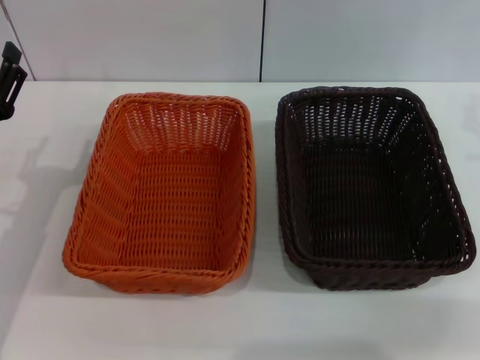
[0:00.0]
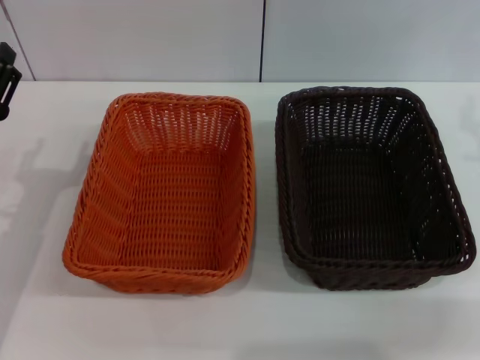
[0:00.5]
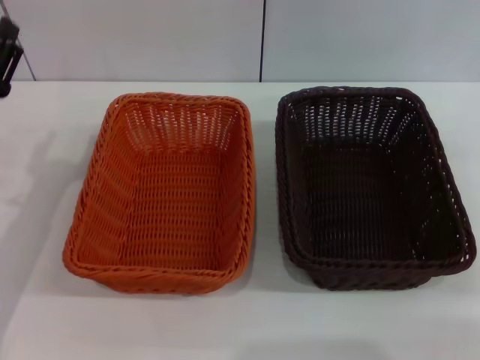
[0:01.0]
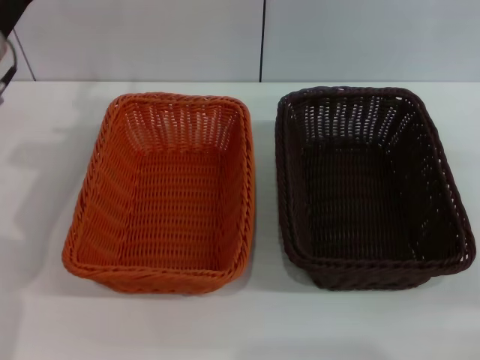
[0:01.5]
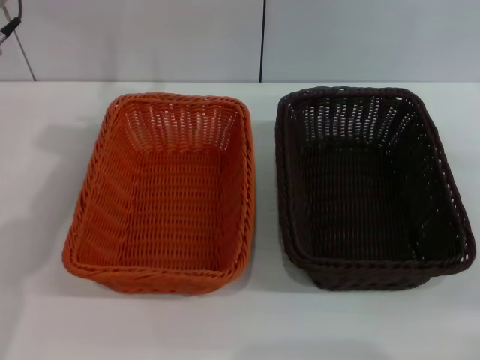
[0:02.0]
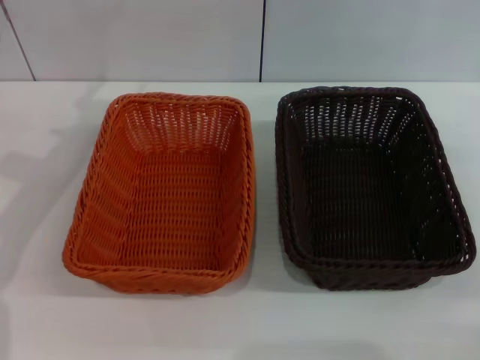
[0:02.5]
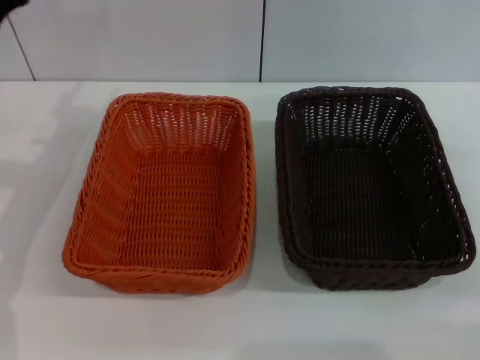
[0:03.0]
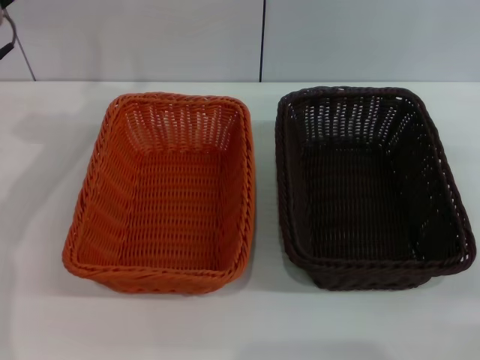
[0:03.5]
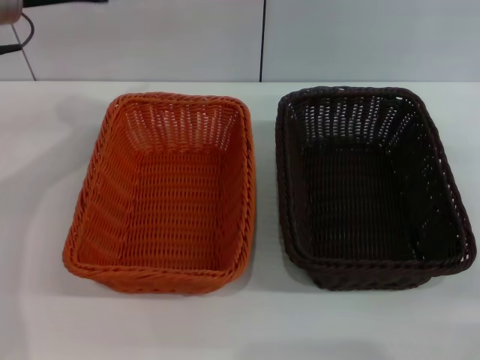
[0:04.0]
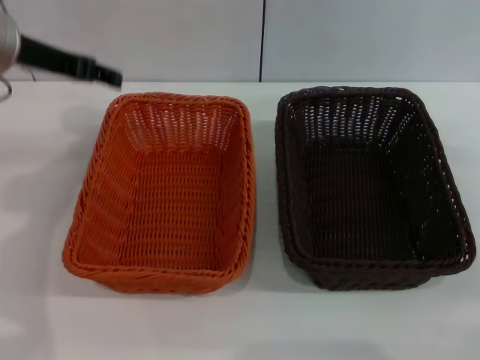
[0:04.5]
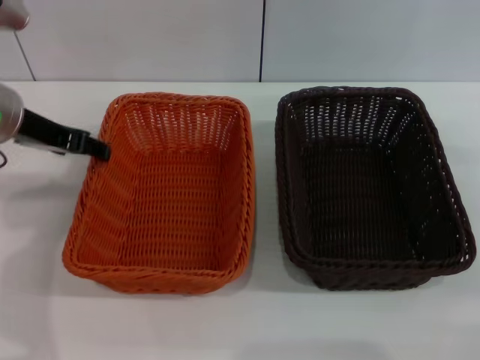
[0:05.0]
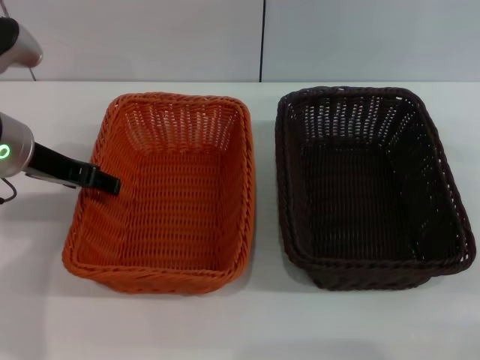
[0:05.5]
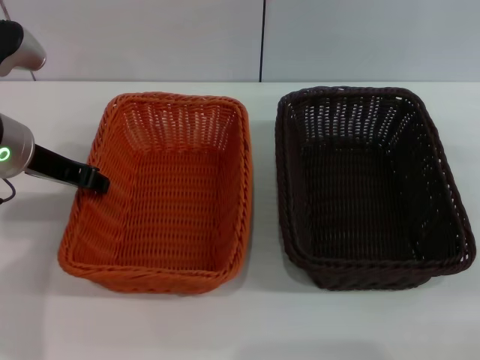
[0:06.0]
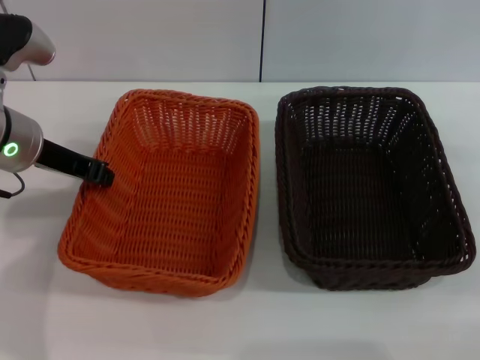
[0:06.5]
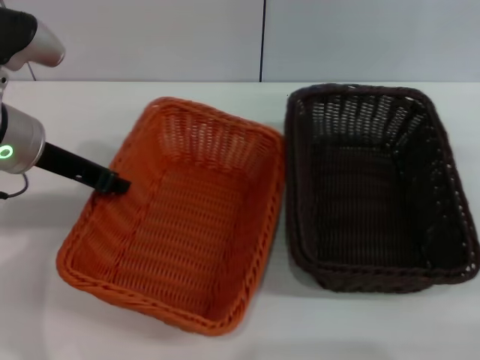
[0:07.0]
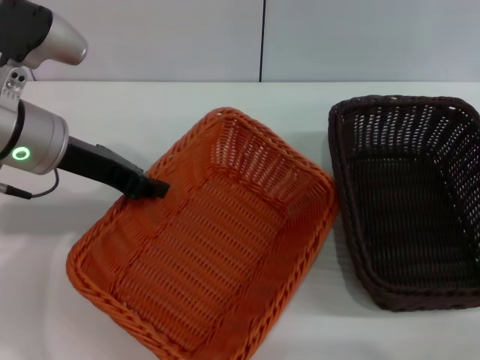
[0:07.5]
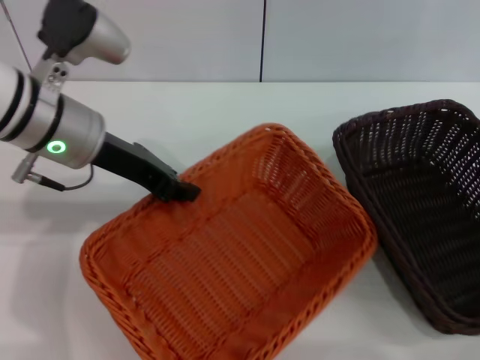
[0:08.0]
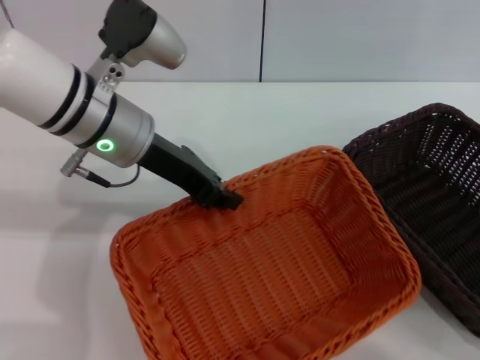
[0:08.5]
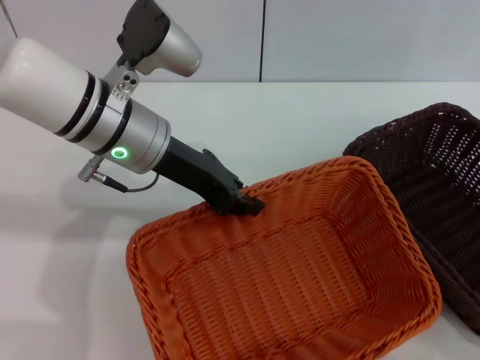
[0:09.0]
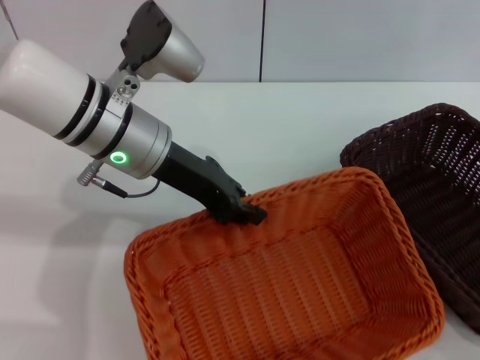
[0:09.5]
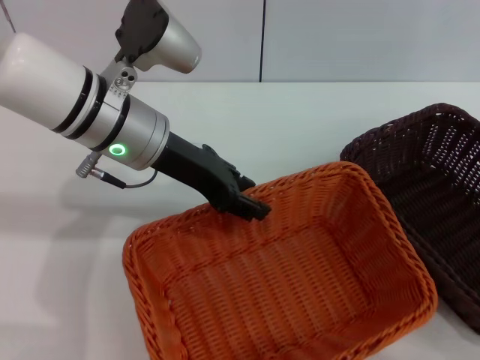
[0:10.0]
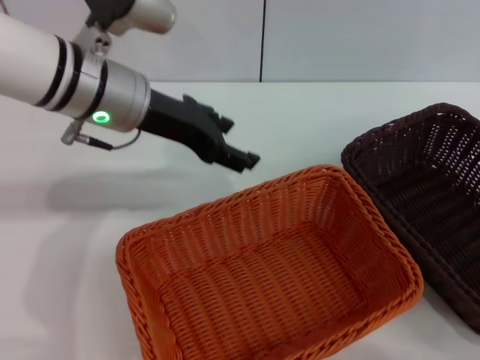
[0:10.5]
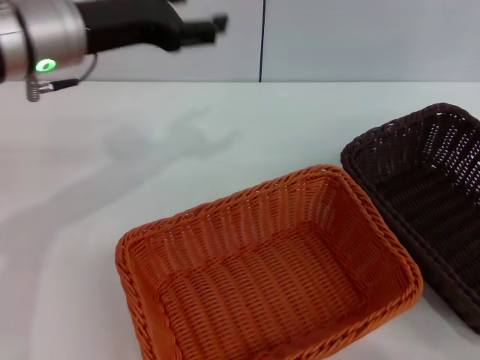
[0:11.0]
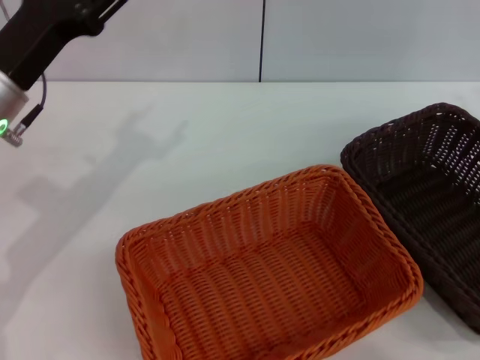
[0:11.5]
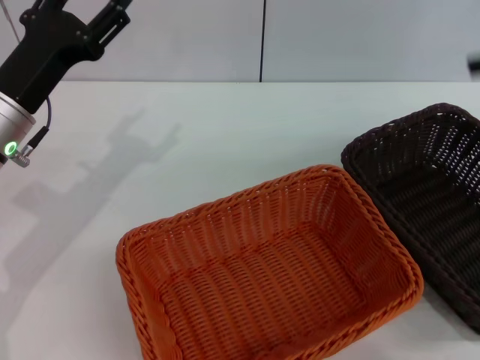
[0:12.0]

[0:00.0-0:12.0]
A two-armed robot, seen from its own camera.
Step, 0:00.0 to 0:08.5: Pick up the light basket with the left gripper.
Step, 0:09.0 to 0:10.0: Place the light basket in the center of view with the left gripper.
0:00.0 to 0:02.0: The right gripper moves some 5 cm, while the left gripper goes approximately 20 cm upward and forward.
0:02.0 to 0:04.0: The left gripper moves some 10 cm downward and comes back.
0:04.0 to 0:06.0: The left gripper heads downward and backward, covering approximately 10 cm, and closes.
0:06.0 to 0:08.0: The left gripper shifts some 5 cm to the right, and closes.
0:10.0 to 0:12.0: The right gripper moves upward, some 15 cm. The left gripper is displaced to the left by approximately 10 cm, and opens up.

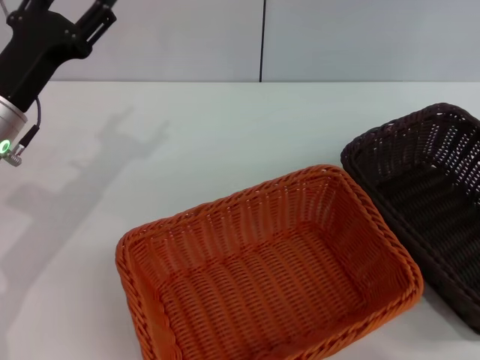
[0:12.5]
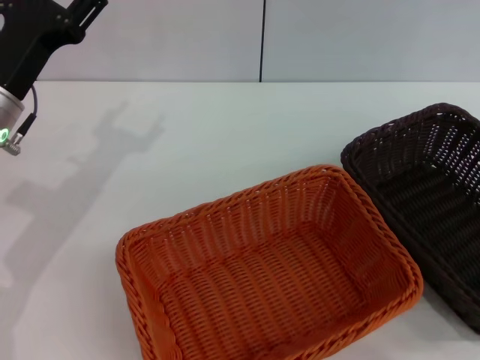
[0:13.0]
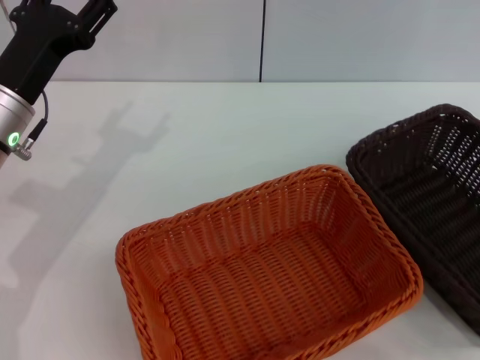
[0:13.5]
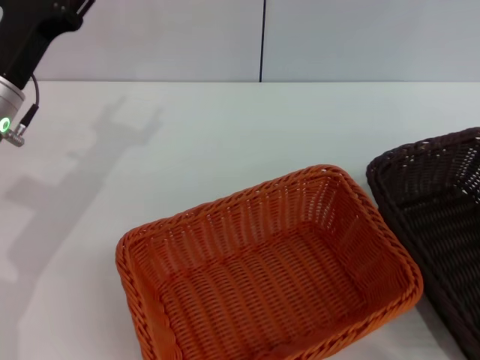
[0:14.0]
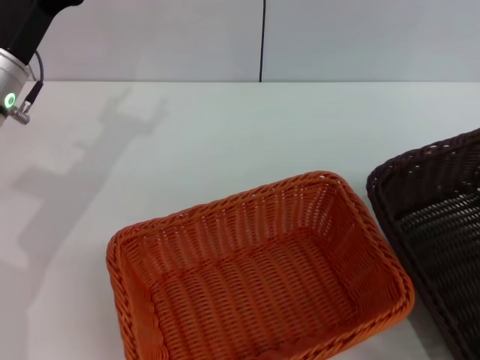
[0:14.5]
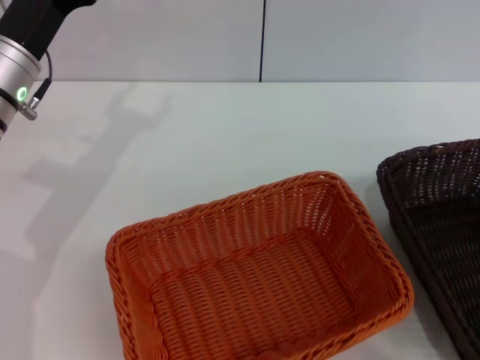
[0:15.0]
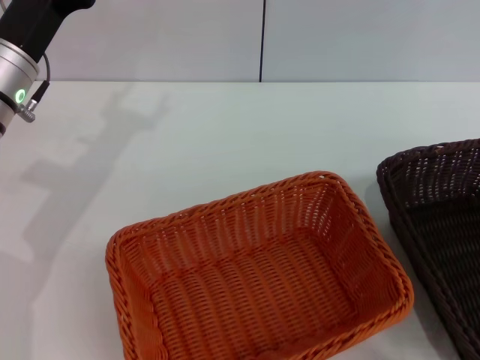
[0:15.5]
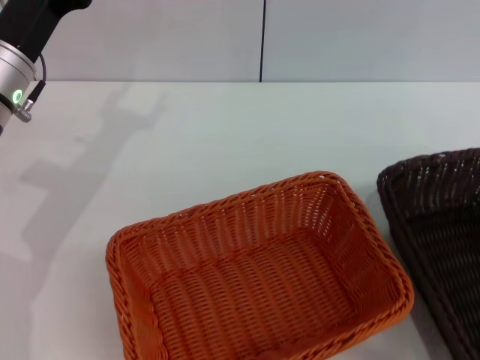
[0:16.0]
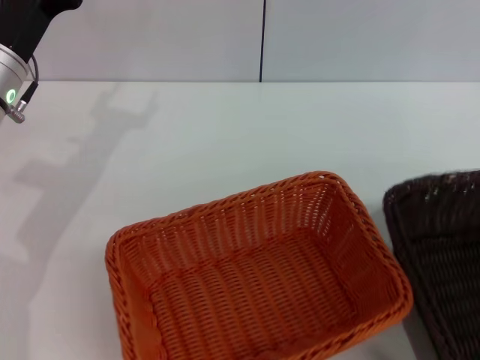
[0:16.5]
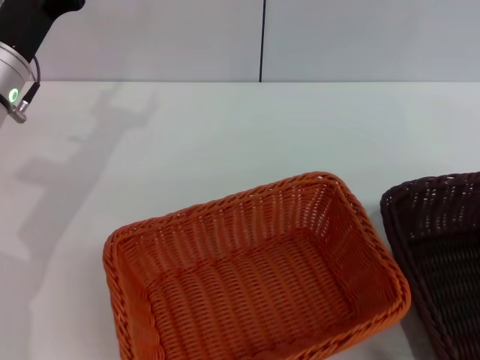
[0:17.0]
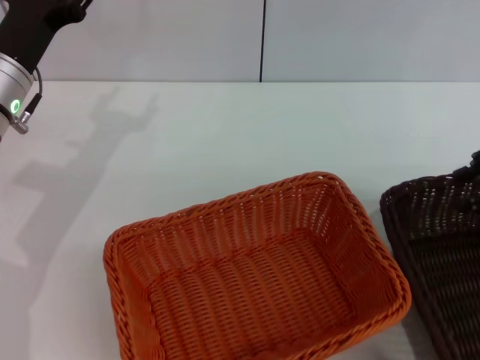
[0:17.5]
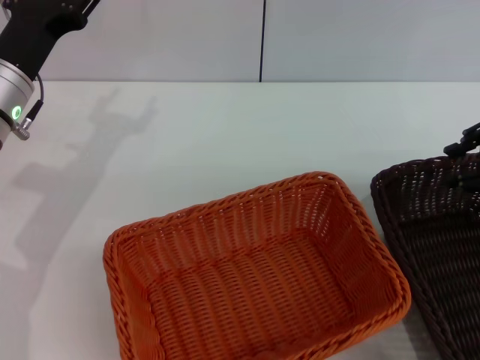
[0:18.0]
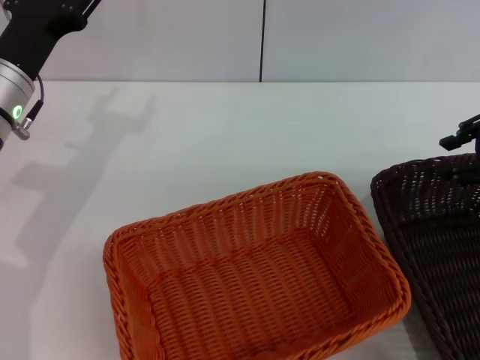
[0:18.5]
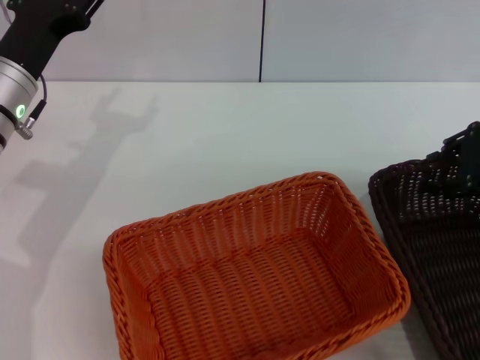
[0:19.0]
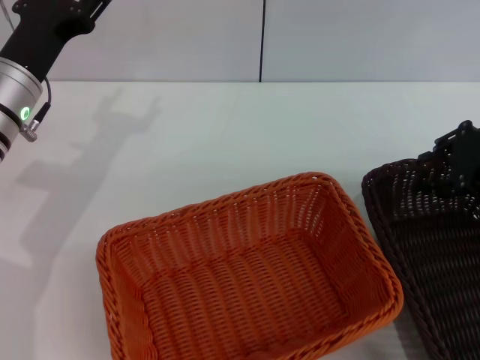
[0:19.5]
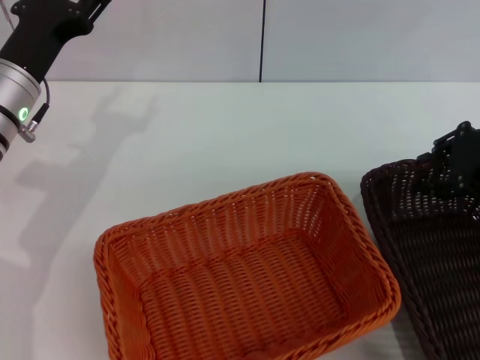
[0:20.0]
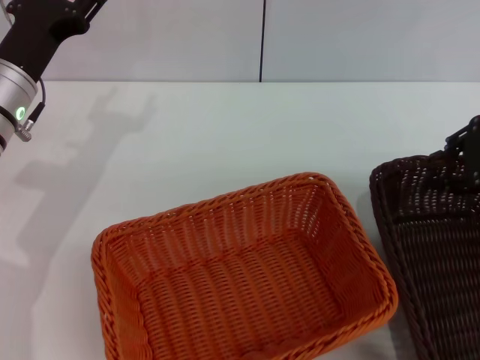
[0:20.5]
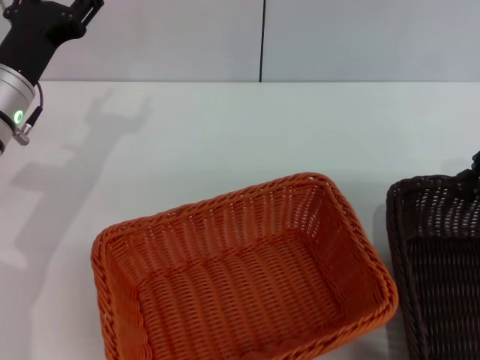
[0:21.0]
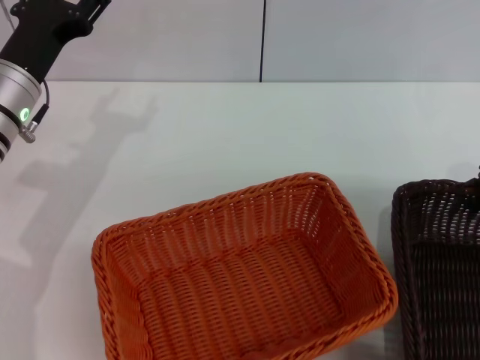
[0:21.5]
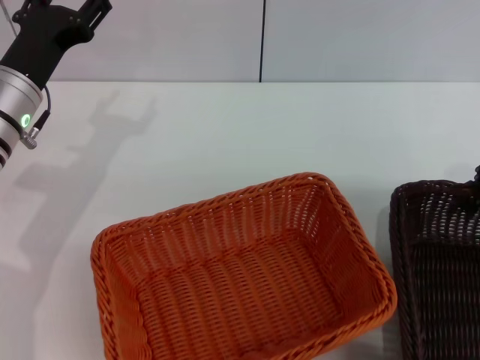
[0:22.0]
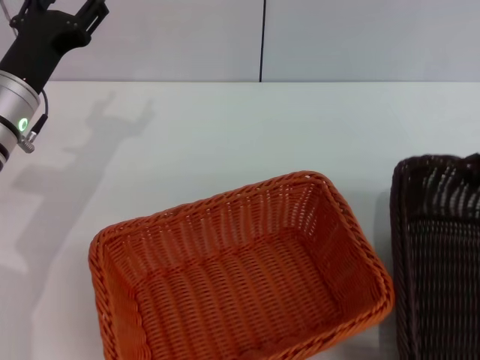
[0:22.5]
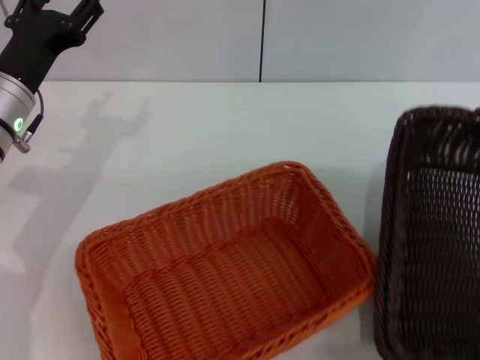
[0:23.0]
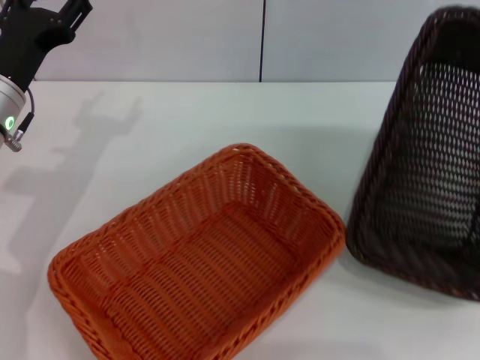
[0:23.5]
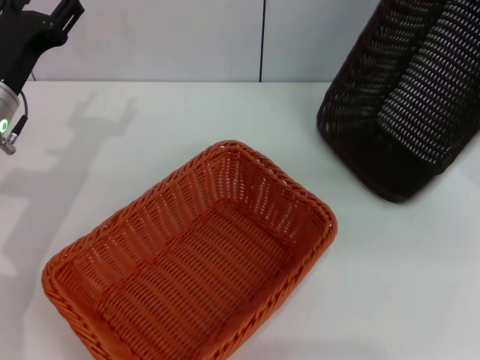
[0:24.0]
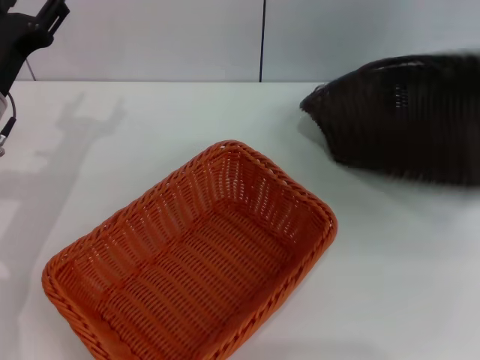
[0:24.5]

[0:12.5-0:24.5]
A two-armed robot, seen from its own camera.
0:12.5 to 0:14.5: The right gripper shifts about 10 cm downward, to the left and backward.
0:14.5 to 0:16.5: The grippers make only small movements.
0:16.5 to 0:18.5: The right gripper goes approximately 10 cm forward.
0:18.5 to 0:22.5: There are only small adjustments of the grippers.
0:22.5 to 0:24.5: The right gripper travels upward by roughly 10 cm.

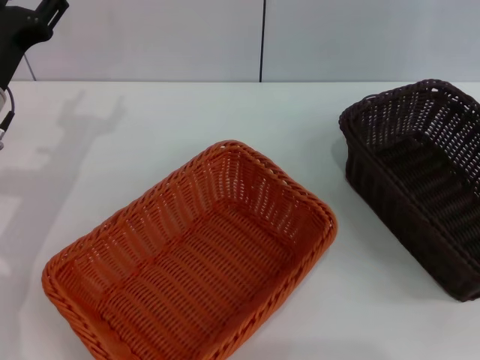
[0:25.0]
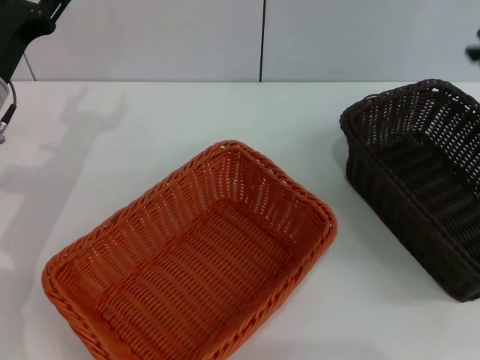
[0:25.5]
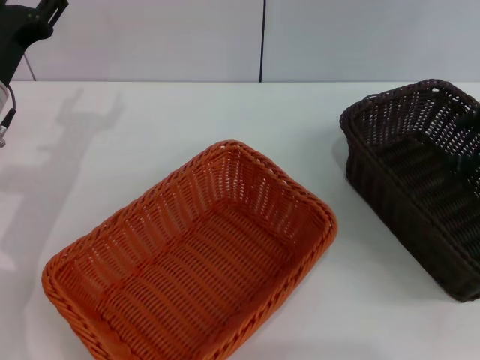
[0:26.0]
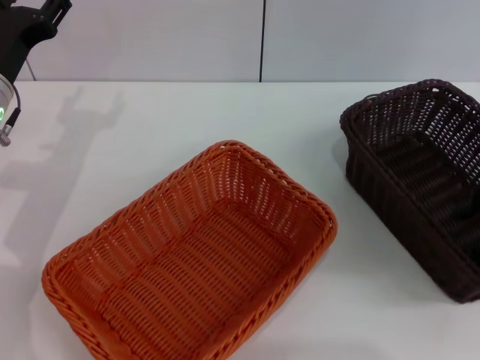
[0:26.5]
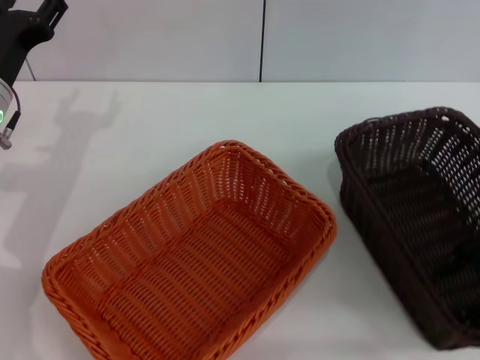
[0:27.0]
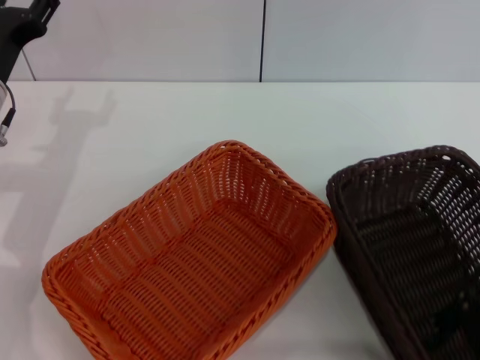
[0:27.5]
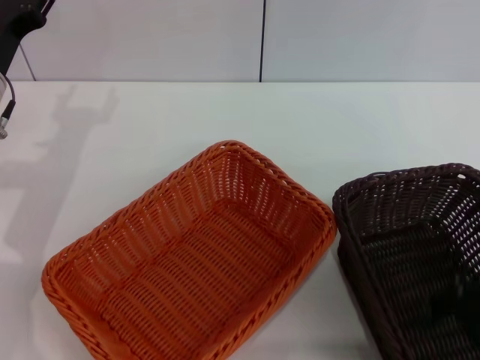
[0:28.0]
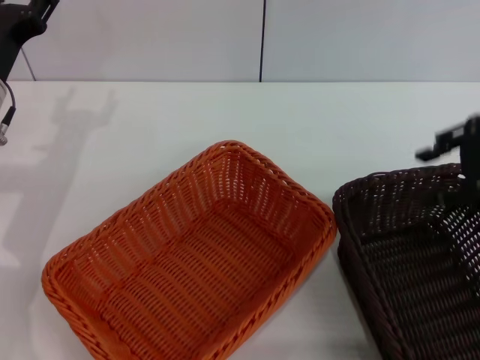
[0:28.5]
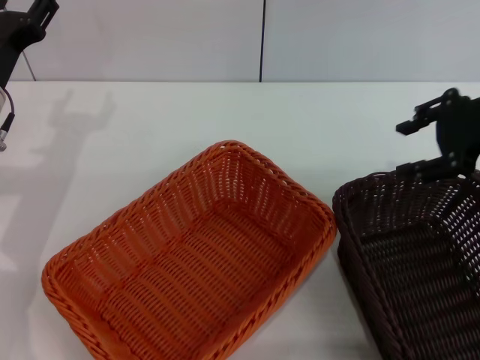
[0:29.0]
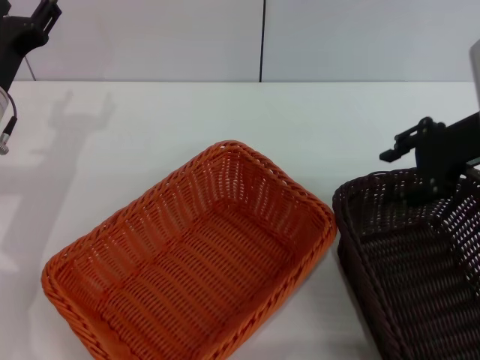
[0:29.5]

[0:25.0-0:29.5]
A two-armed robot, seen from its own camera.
0:25.0 to 0:27.0: The right gripper moves downward and backward, roughly 15 cm, and opens its fingers.
0:27.0 to 0:29.5: The right gripper travels forward by roughly 10 cm.
